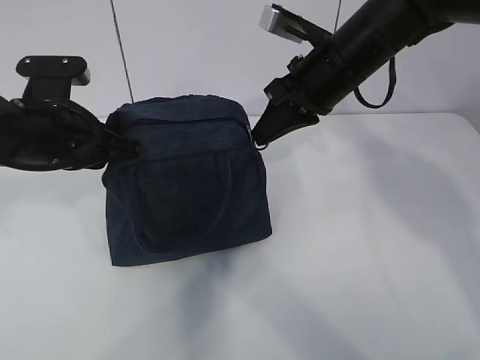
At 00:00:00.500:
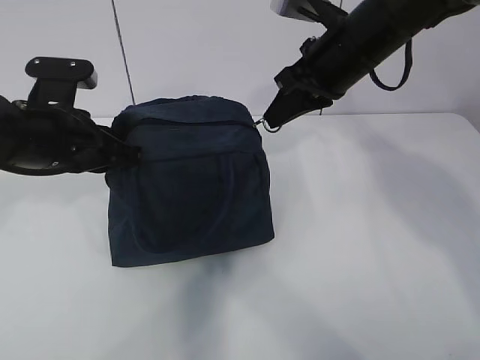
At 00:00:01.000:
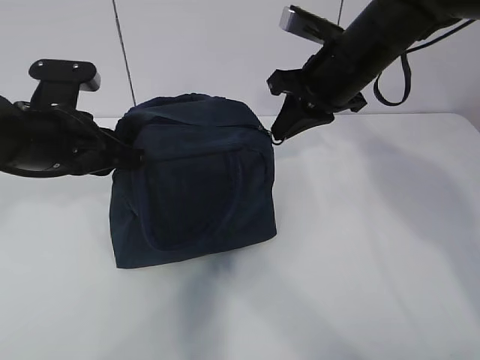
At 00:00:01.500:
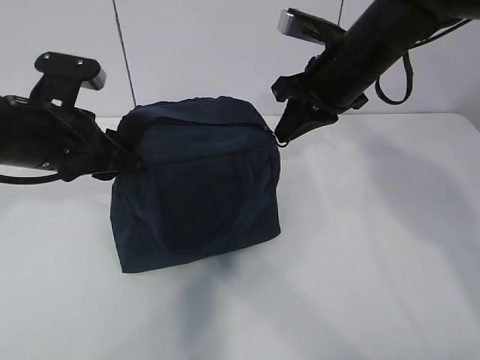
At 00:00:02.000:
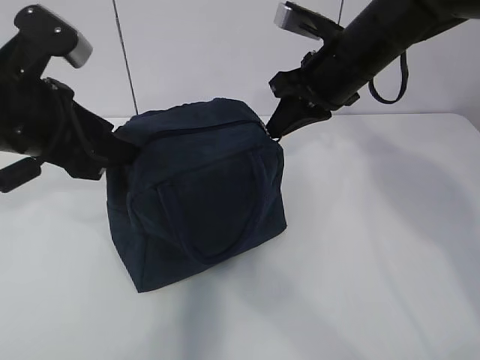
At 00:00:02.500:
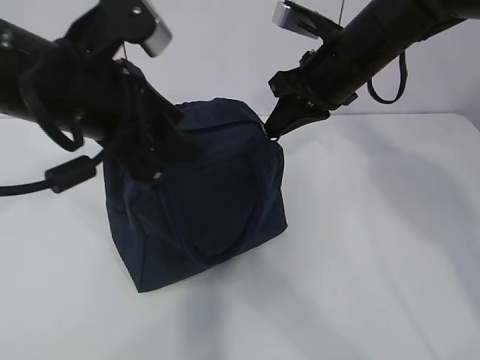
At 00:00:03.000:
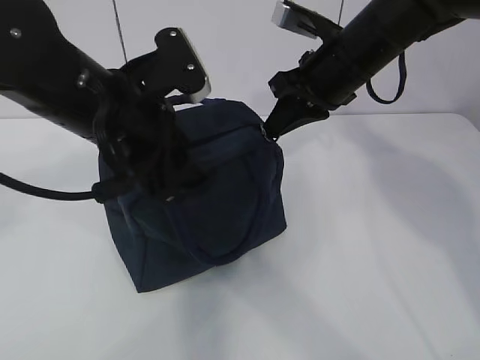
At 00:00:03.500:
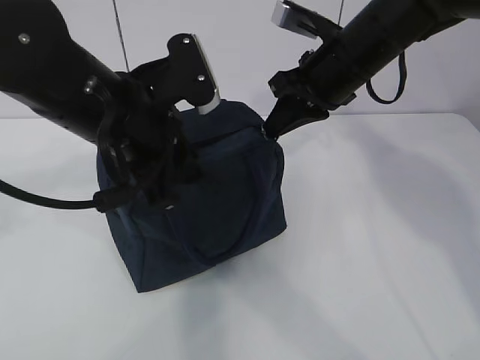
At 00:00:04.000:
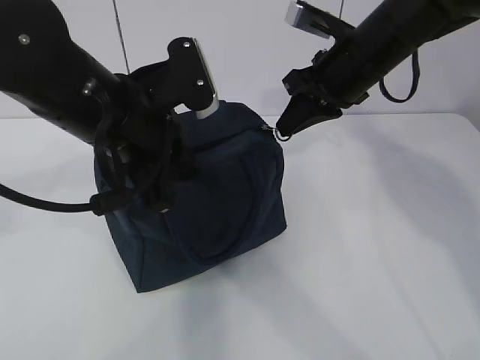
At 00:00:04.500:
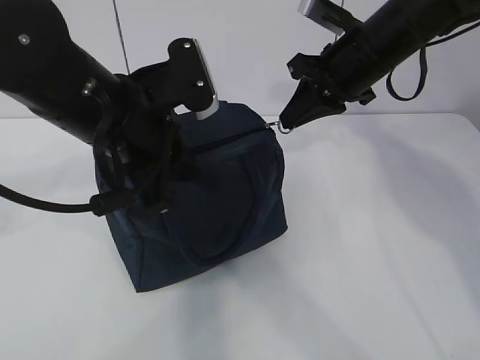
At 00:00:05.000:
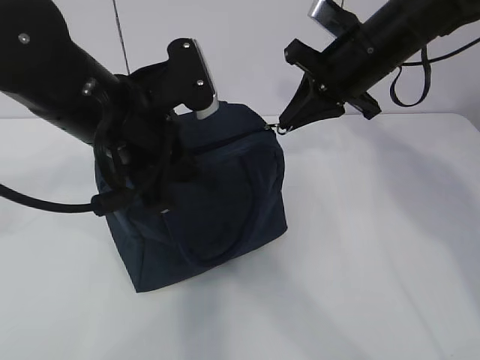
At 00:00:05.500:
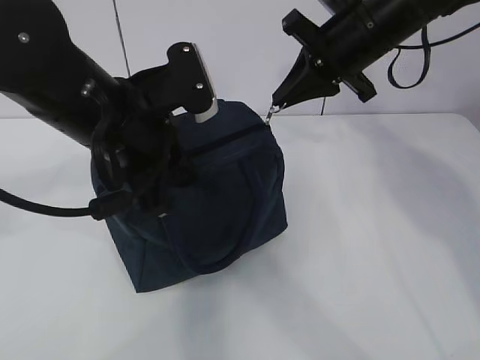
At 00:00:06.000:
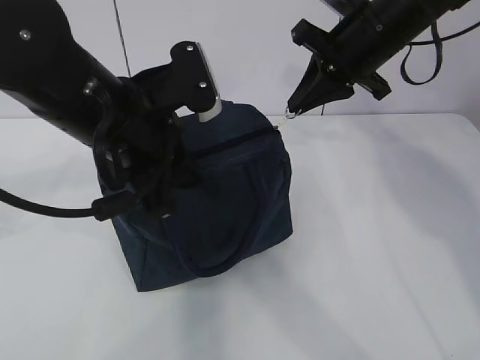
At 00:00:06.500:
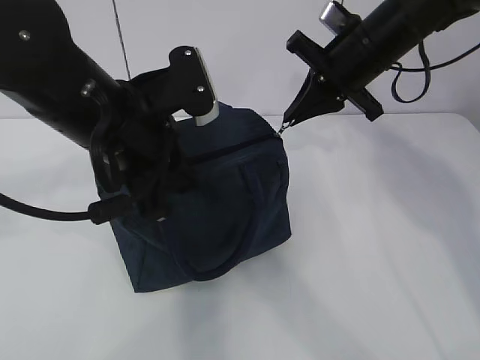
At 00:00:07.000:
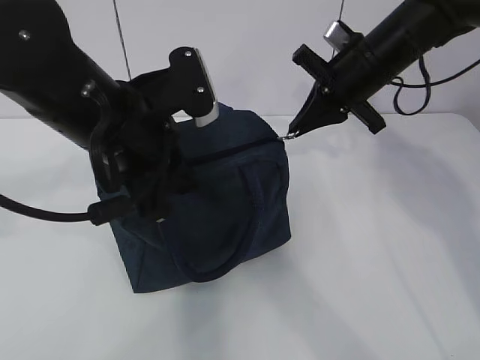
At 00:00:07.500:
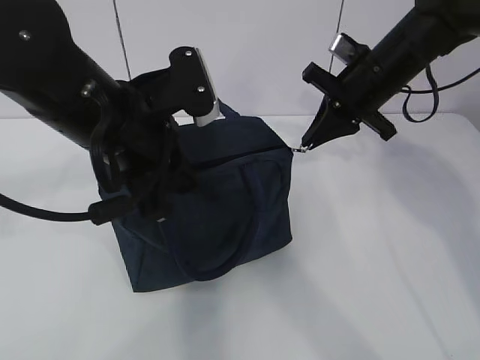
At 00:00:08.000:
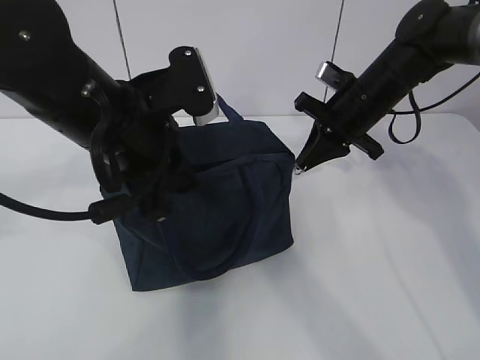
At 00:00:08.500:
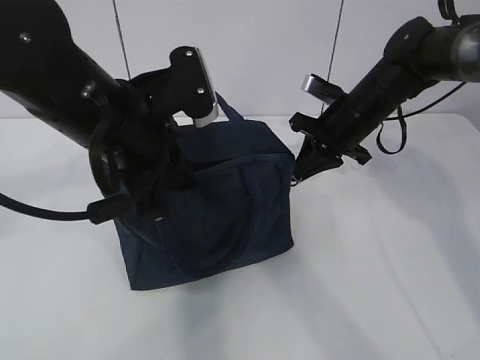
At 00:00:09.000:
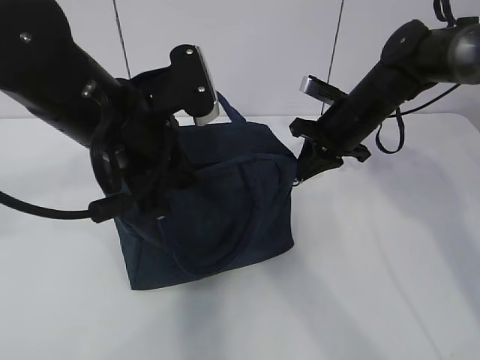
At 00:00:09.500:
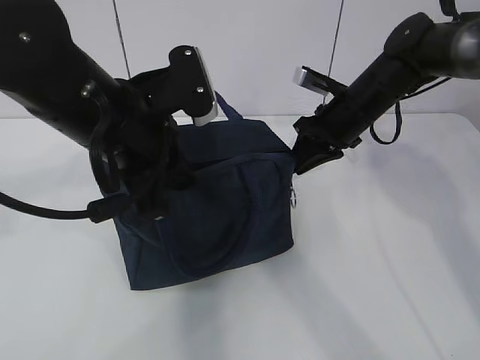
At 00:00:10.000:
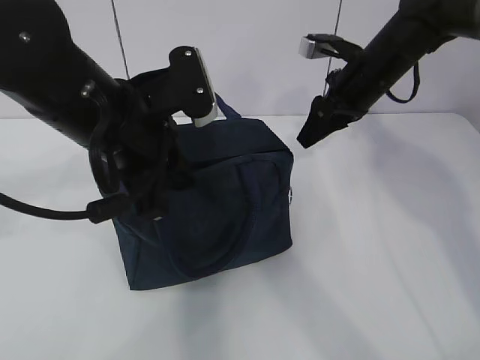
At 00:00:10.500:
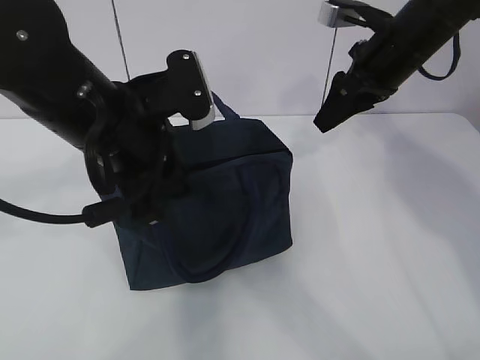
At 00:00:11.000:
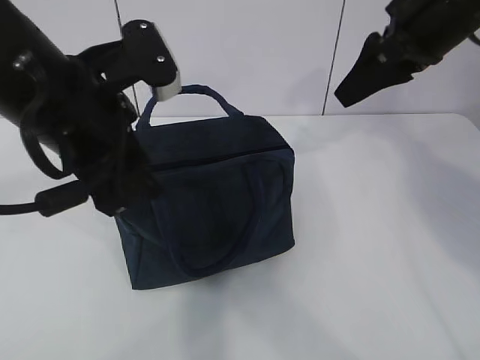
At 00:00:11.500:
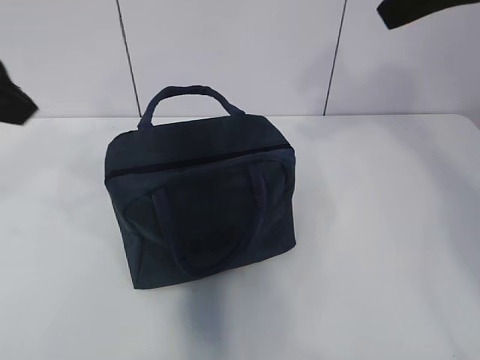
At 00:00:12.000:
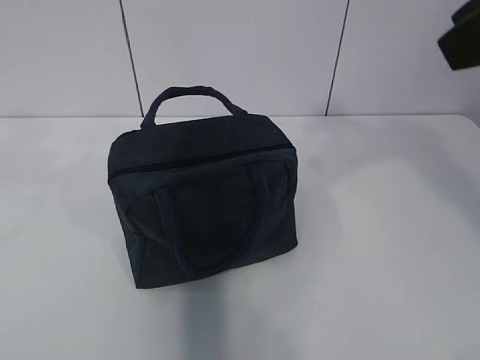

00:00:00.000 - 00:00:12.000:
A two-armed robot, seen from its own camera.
00:00:00.000 - 00:00:02.000: The left gripper shifts approximately 10 cm upward and backward, and opens.
00:00:02.000 - 00:00:04.000: The left gripper heads to the right, covering some 10 cm, and closes up.
00:00:06.000 - 00:00:08.000: The right gripper is displaced downward by roughly 10 cm.
00:00:08.000 - 00:00:10.000: The right gripper opens.
00:00:10.000 - 00:00:12.000: The right gripper heads backward and upward, covering approximately 35 cm. Meanwhile the left gripper goes approximately 30 cm to the left, upward and backward, and opens its fingers.

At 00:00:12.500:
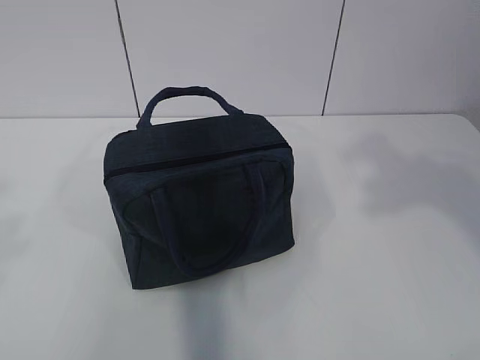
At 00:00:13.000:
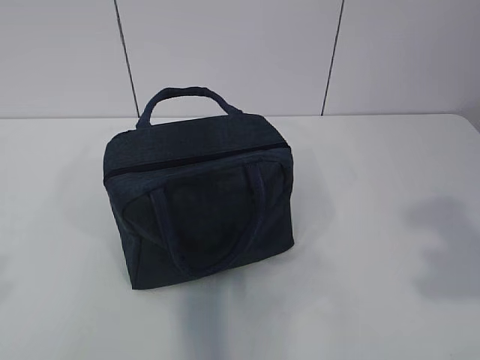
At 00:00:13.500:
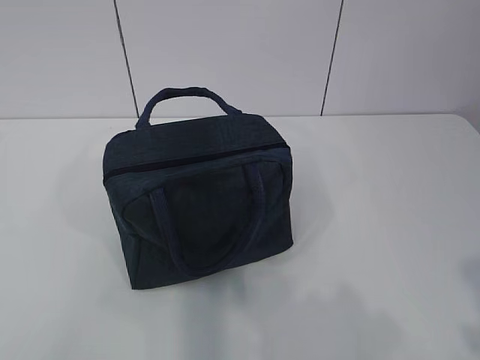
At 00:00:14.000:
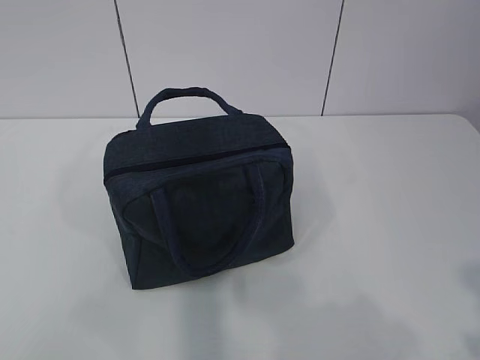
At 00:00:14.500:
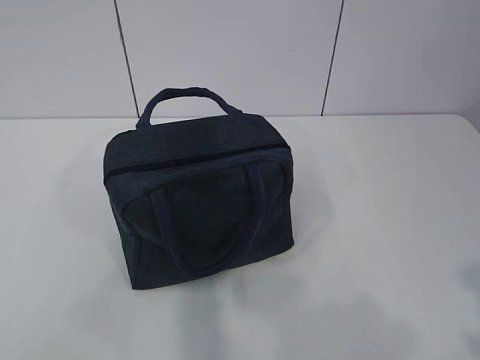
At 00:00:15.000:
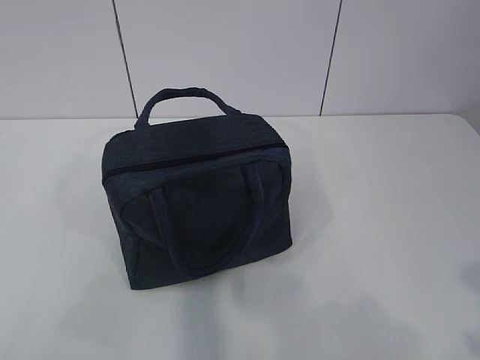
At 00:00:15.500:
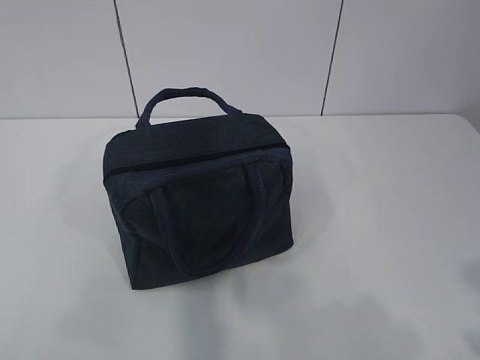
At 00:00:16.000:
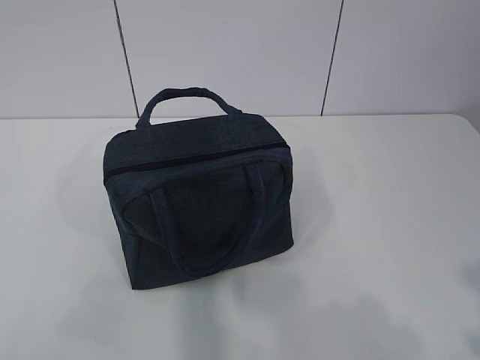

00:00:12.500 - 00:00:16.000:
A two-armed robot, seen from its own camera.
00:00:12.500 - 00:00:14.500: The left gripper heads downward and backward, covering approximately 10 cm, while the right gripper heads backward and downward, covering approximately 20 cm.
